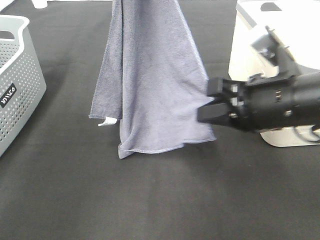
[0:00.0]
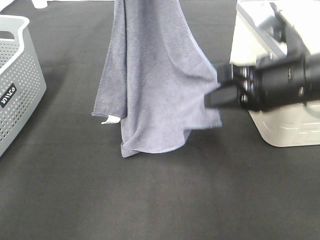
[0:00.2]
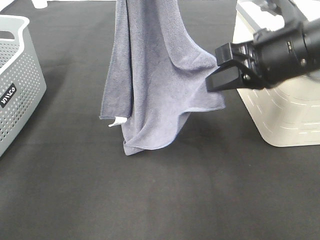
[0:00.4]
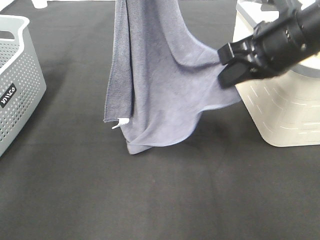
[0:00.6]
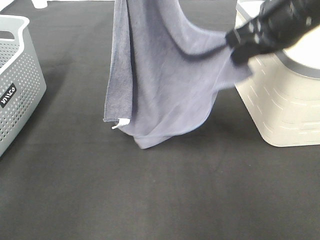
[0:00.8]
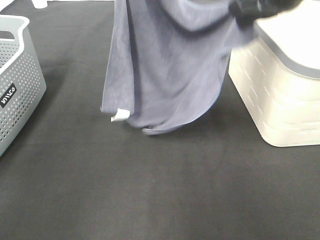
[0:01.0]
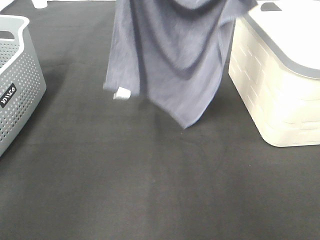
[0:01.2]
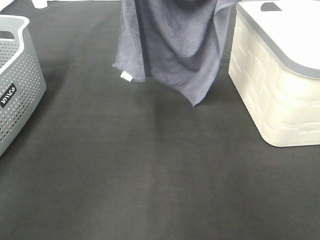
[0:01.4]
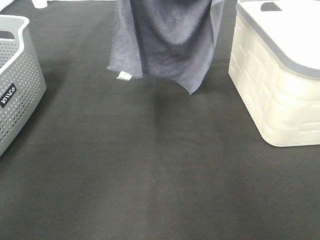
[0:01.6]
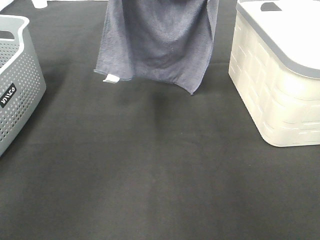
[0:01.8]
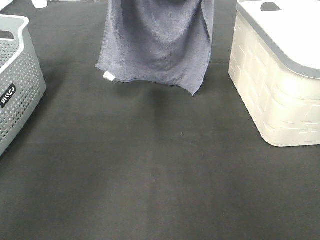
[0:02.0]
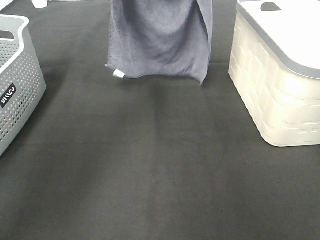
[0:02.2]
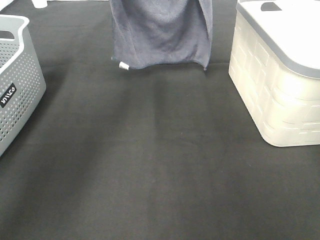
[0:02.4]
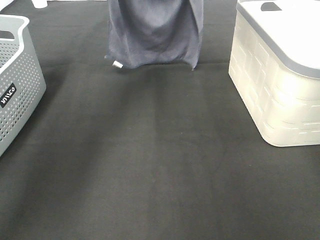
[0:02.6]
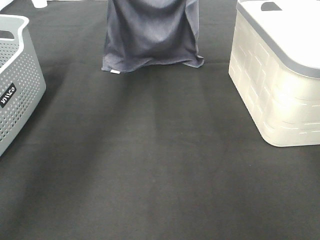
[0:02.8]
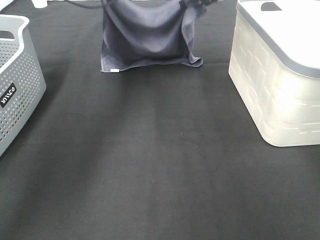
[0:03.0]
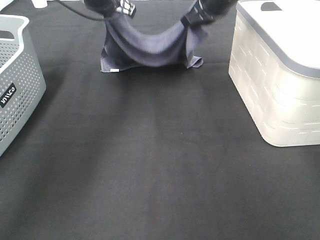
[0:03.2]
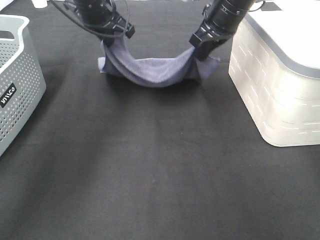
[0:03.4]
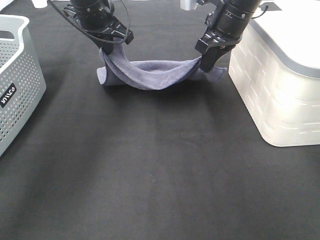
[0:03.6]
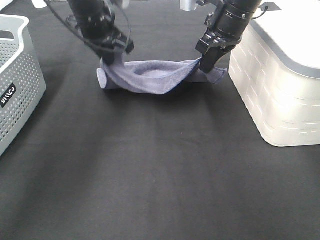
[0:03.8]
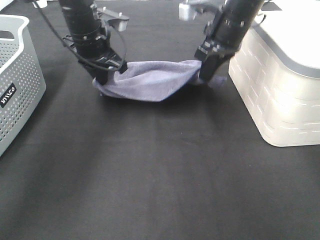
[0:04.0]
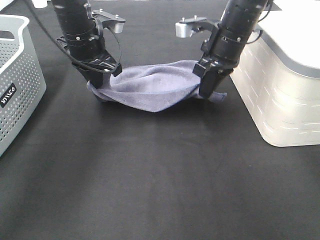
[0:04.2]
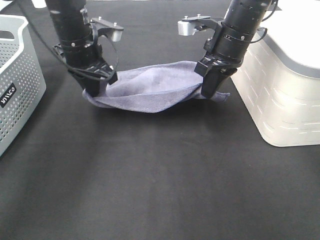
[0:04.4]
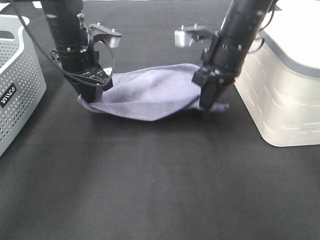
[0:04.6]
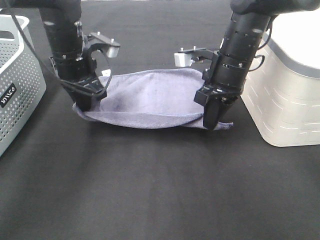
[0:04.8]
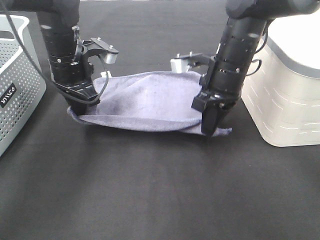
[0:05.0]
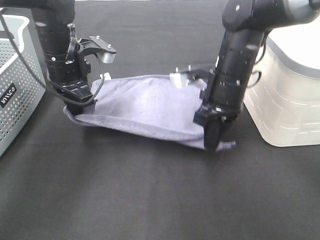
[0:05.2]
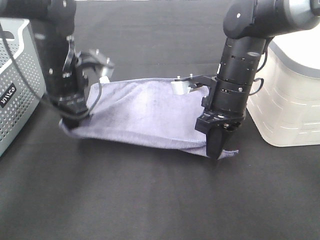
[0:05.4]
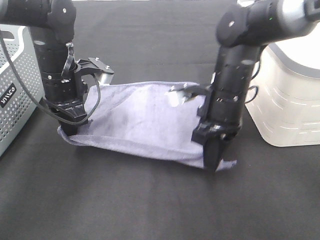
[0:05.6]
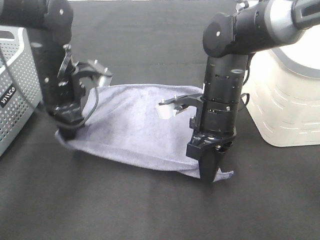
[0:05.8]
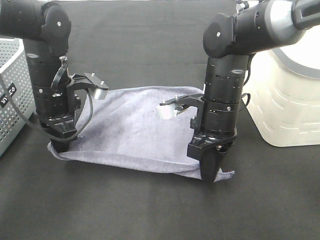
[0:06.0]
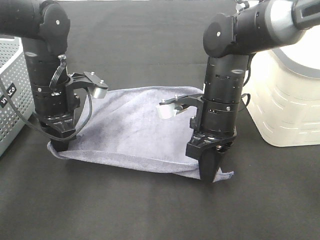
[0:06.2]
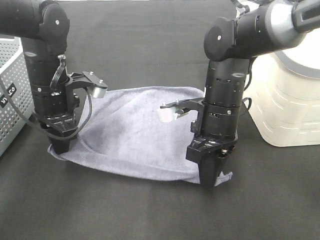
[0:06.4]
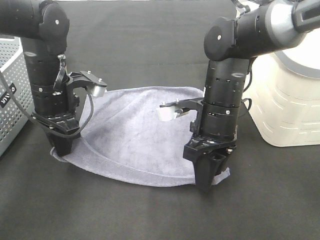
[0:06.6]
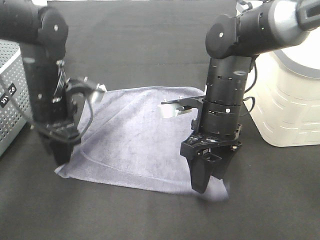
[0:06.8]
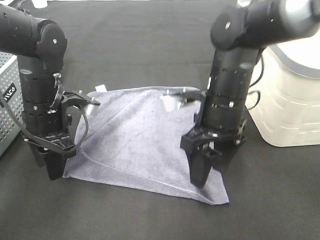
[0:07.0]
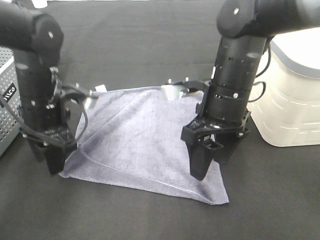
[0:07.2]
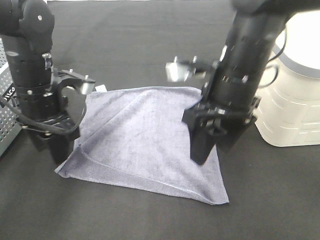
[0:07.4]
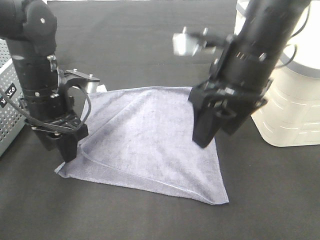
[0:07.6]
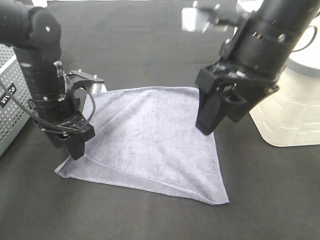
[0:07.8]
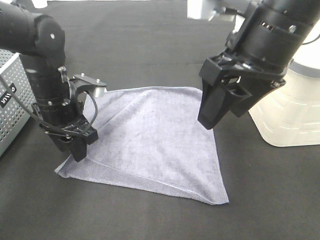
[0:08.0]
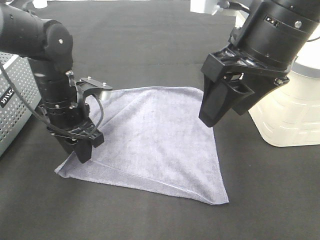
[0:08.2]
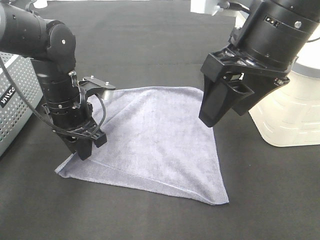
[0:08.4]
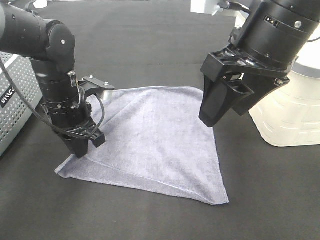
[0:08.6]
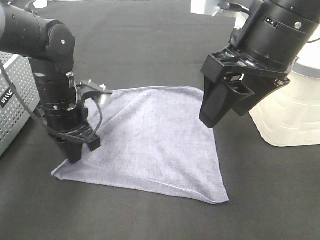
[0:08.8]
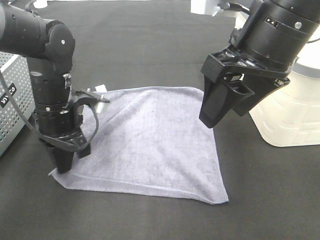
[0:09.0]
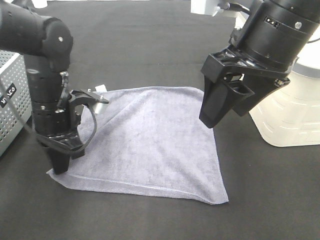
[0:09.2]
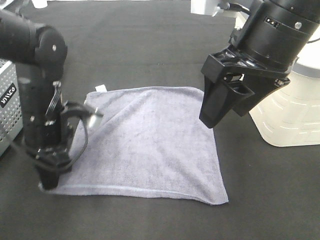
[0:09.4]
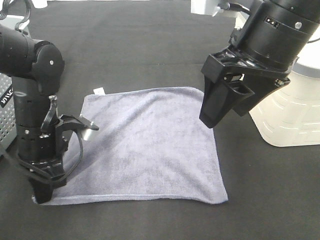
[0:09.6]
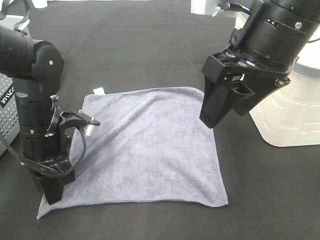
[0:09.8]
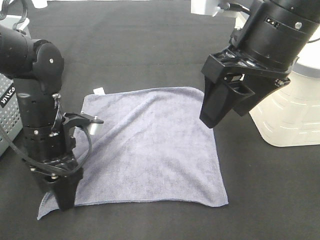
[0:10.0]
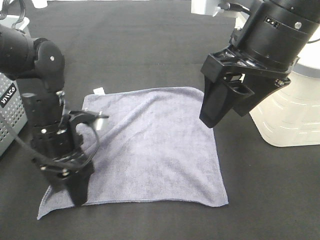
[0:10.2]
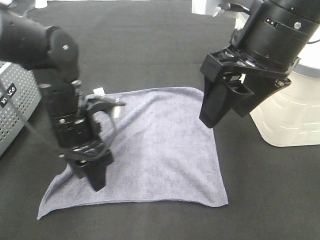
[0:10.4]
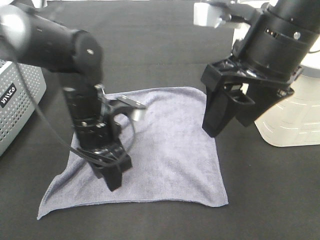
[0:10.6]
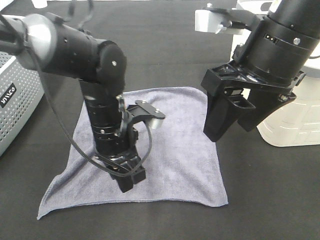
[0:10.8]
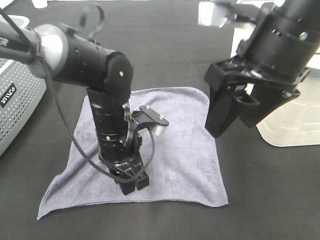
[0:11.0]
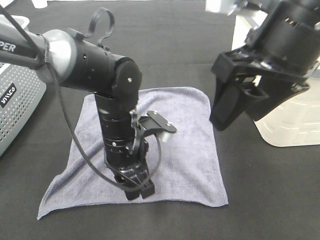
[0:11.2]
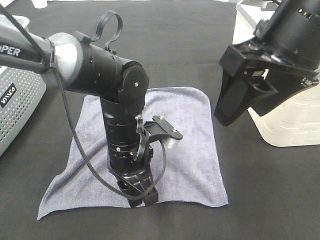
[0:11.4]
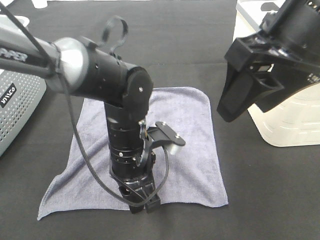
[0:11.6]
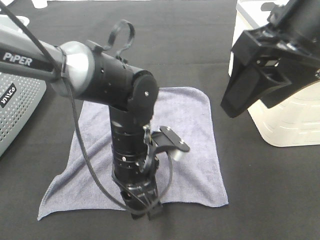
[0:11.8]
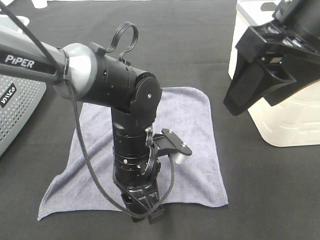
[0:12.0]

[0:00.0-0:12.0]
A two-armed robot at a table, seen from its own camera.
Task of the whole recording: Remove the towel and place it.
Step, 0:00.8 to 0:04.8: Left hand:adjust the gray towel.
0:00.0 to 0:01.6: The left gripper goes about 5 cm forward, while the right gripper is displaced forward and upward by approximately 25 cm.
0:01.6 to 0:03.0: The two grippers go about 15 cm downward and forward.
0:03.0 to 0:04.4: Both grippers travel together backward and downward, roughly 10 cm.
0:04.4 to 0:06.0: The right gripper moves backward and downward, some 15 cm, while the left gripper shifts about 5 cm backward.
0:06.0 to 0:07.6: The right gripper goes roughly 10 cm upward, and opens its fingers; the left gripper opens its fingers.
0:07.6 to 0:09.0: The left gripper closes; the right gripper moves about 5 cm.
0:09.0 to 0:10.4: The left gripper opens its fingers.
0:10.4 to 0:12.0: The left gripper goes approximately 10 cm to the right. Meanwhile the right gripper moves about 5 cm.

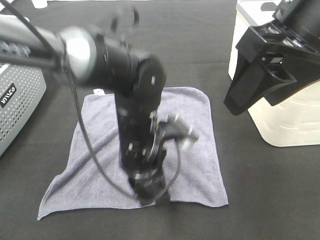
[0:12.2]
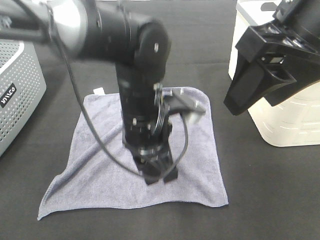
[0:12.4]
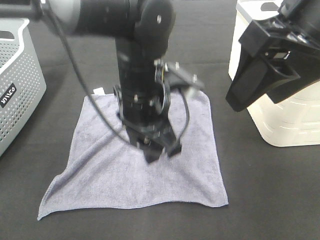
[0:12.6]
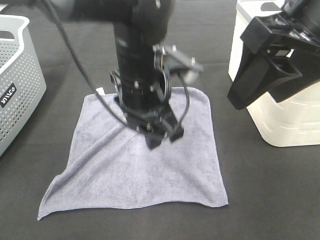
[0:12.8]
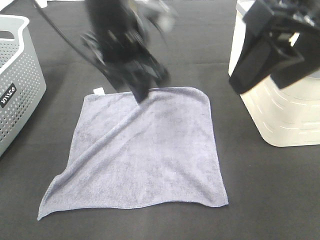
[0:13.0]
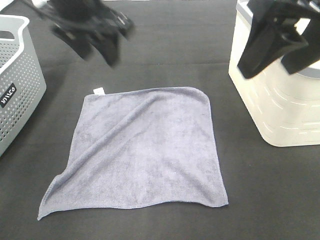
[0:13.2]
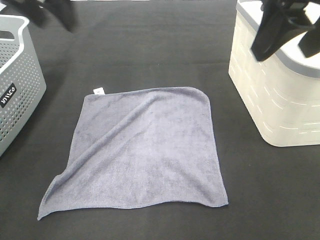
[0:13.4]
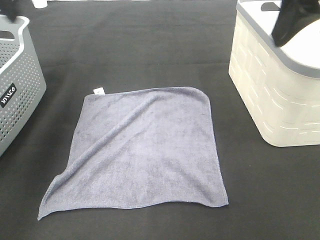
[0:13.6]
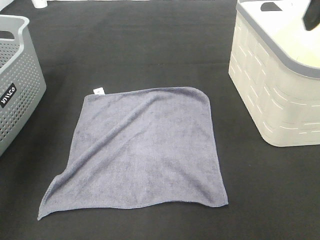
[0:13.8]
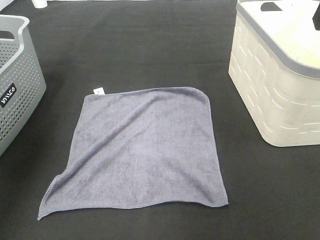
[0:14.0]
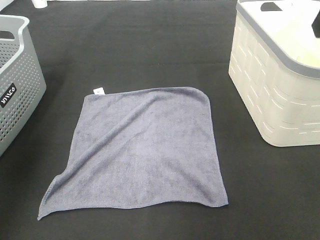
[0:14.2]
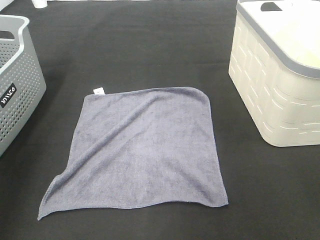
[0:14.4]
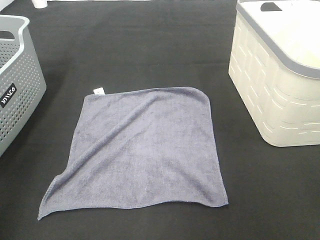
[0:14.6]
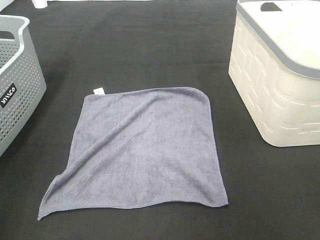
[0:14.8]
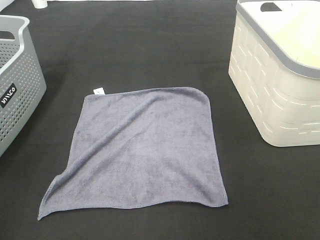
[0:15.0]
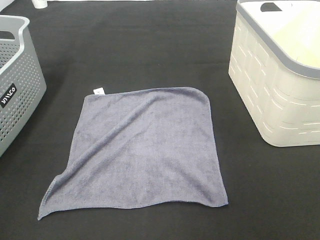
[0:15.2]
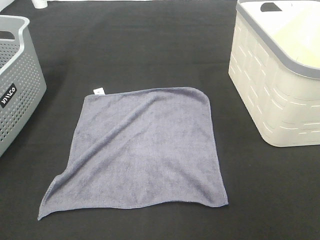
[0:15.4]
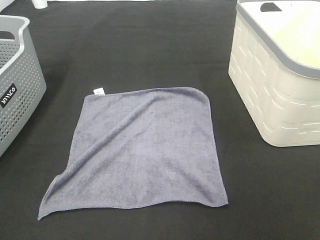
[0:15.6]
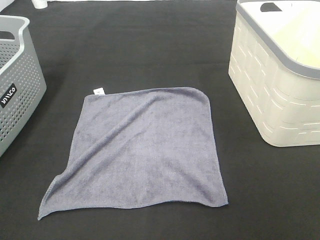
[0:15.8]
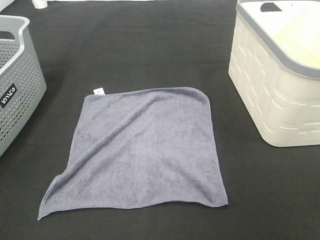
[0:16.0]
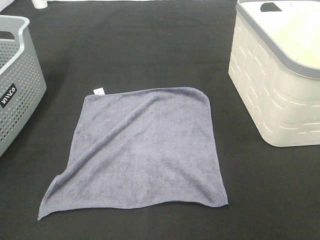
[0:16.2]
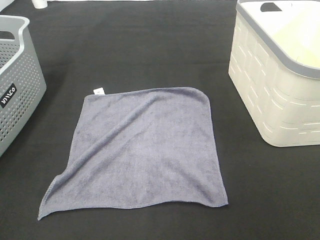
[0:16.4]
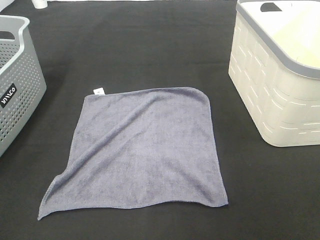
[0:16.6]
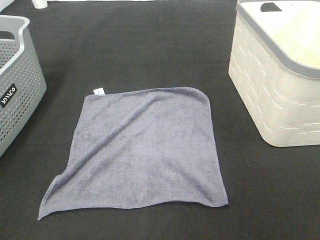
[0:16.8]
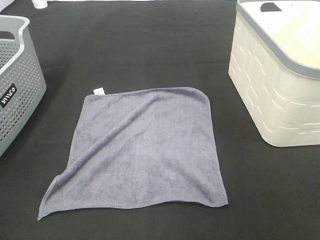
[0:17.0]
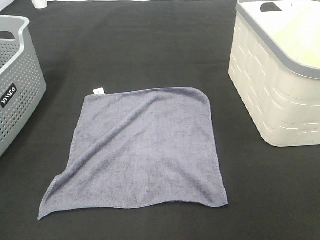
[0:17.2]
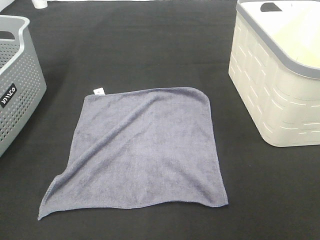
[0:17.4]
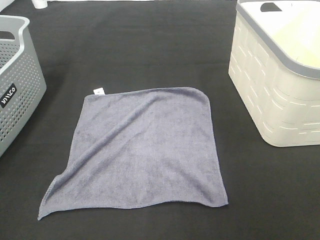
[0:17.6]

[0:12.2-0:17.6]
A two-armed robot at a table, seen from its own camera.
Task of the whole recording: Remove the towel and place it.
0:12.2 to 0:13.6: The left gripper shifts about 35 cm upward and to the left. Meanwhile the right gripper ends up some 5 cm from where it was.
0:13.6 to 0:15.0: The right gripper travels backward and to the right by some 20 cm. The left gripper is displaced backward by approximately 30 cm.

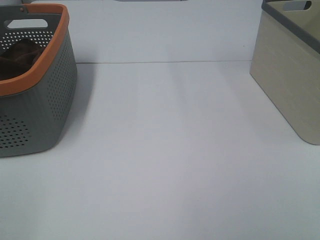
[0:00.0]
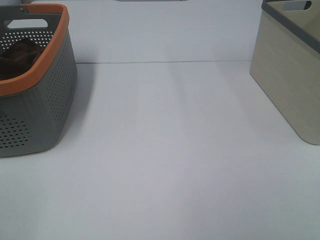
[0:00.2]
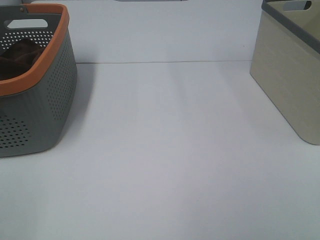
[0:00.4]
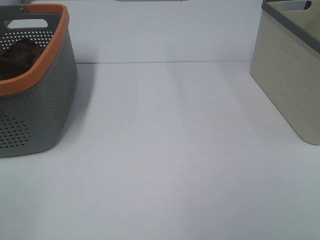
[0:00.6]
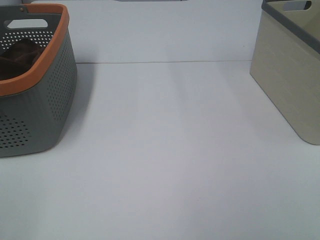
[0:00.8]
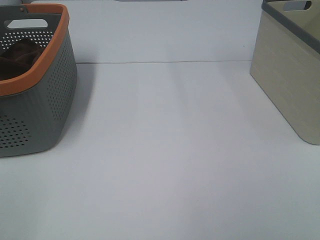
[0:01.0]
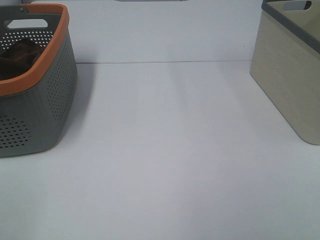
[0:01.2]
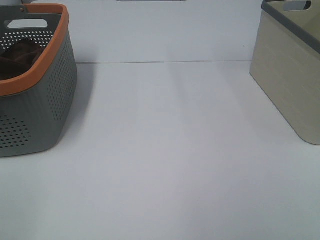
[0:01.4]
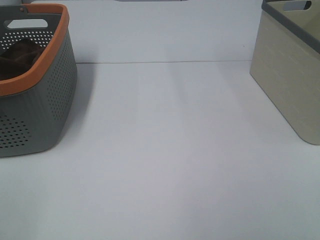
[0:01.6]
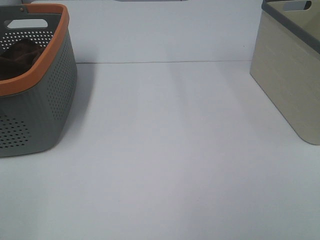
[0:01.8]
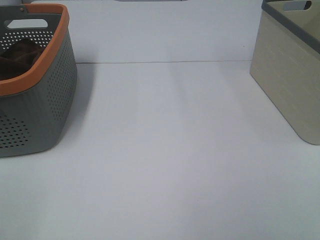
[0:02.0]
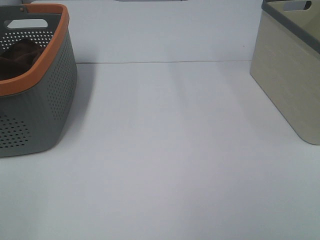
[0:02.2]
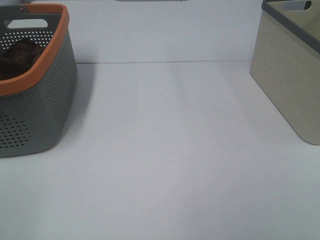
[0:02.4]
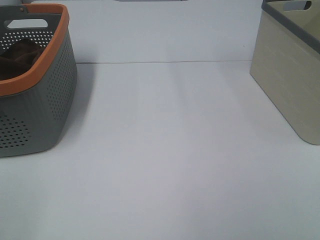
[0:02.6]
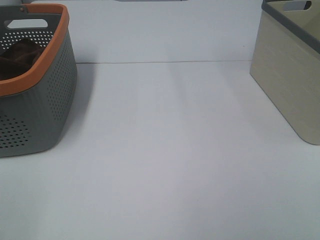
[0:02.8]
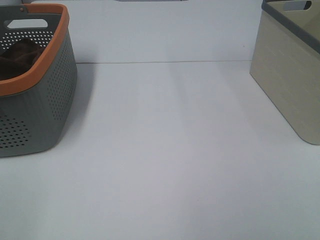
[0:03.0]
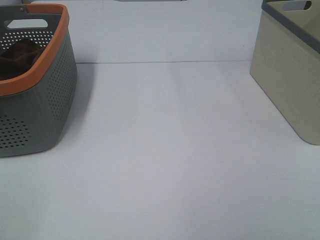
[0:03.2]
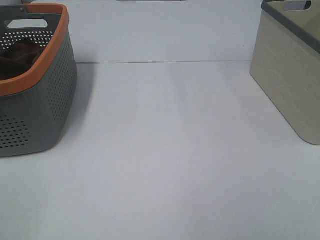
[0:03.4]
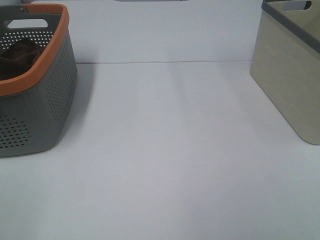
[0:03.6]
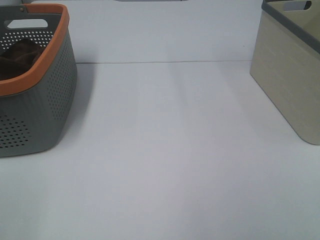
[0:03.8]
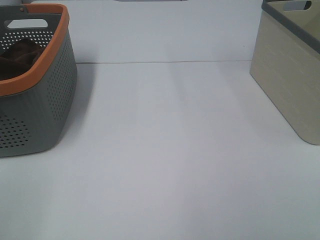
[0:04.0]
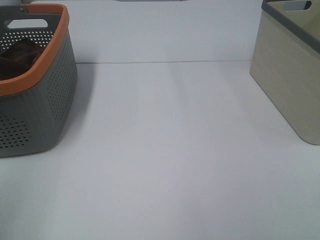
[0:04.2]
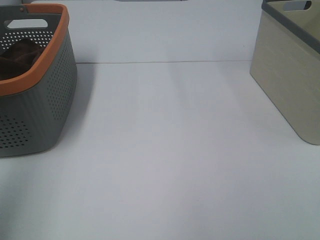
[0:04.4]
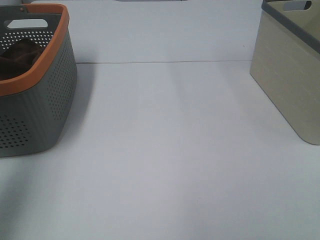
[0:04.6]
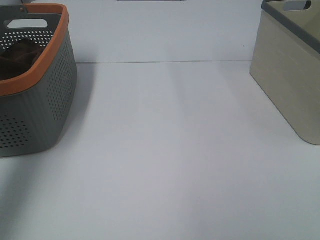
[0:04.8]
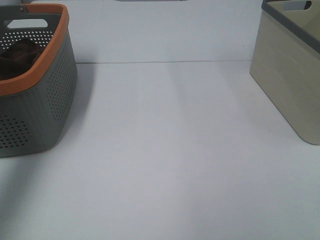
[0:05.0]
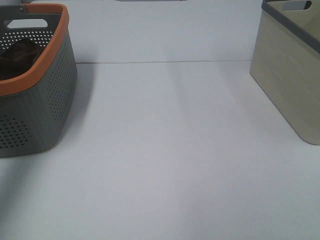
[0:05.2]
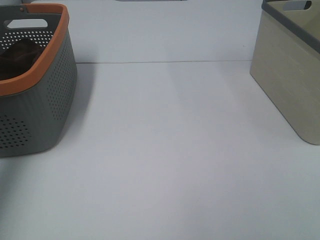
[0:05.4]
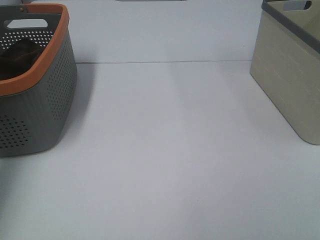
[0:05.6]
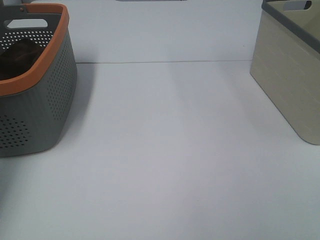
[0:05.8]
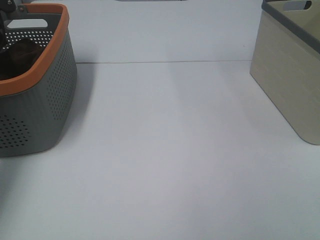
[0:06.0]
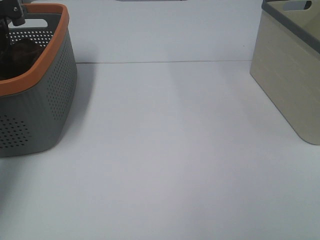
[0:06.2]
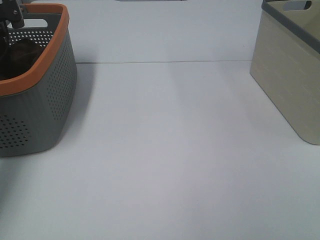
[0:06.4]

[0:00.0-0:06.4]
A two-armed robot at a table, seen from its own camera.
Task of the whole recording: Remove the towel and place it.
0:00.0 to 0:03.2: Both grippers stay about where they are.
0:03.2 to 0:04.8: The left gripper goes approximately 30 cm forward and upward.
0:04.8 to 0:06.4: The left gripper travels downward and forward by approximately 30 cm.
